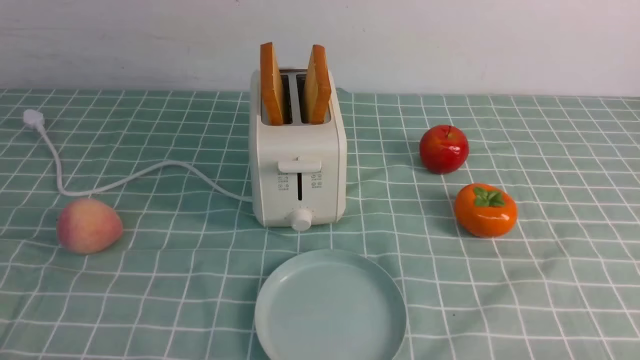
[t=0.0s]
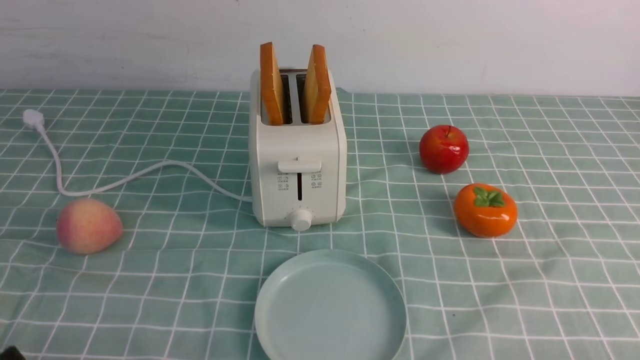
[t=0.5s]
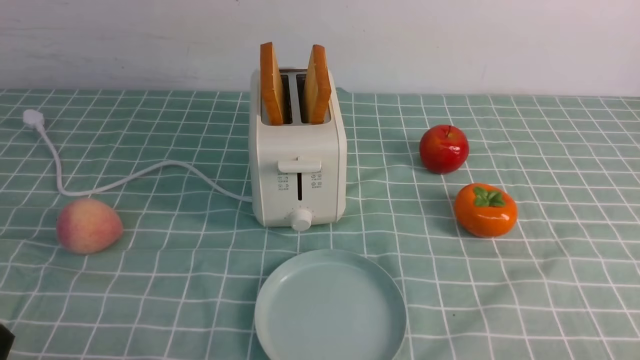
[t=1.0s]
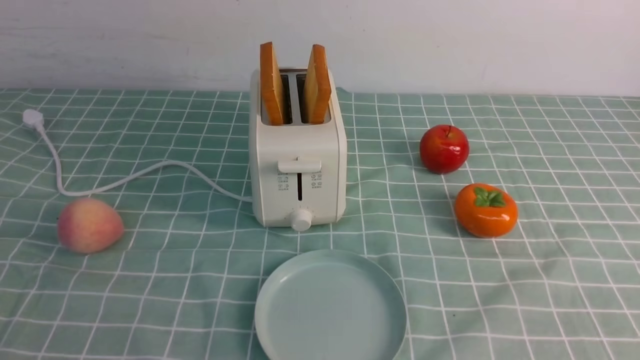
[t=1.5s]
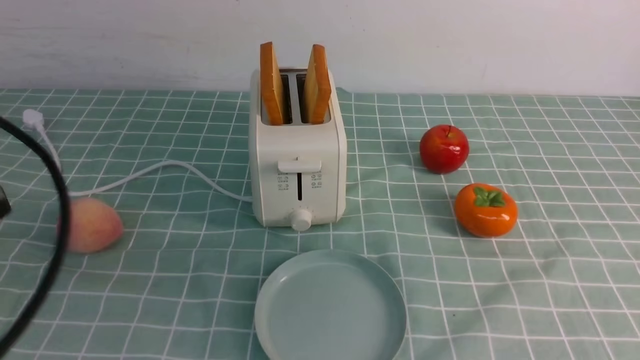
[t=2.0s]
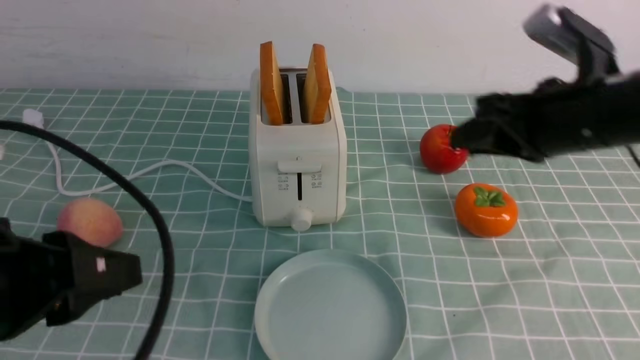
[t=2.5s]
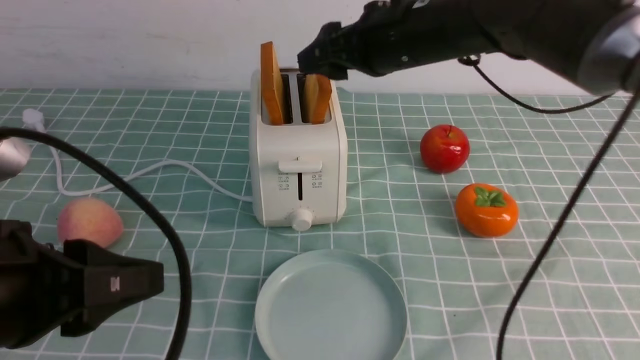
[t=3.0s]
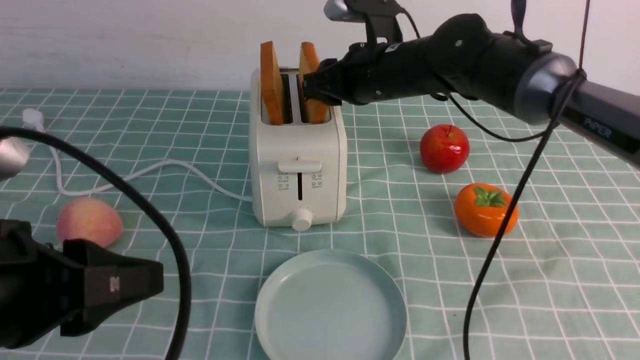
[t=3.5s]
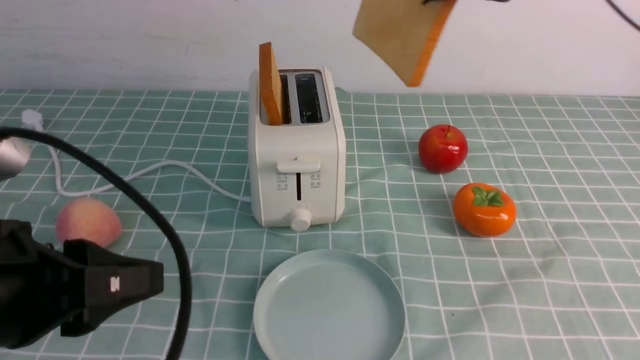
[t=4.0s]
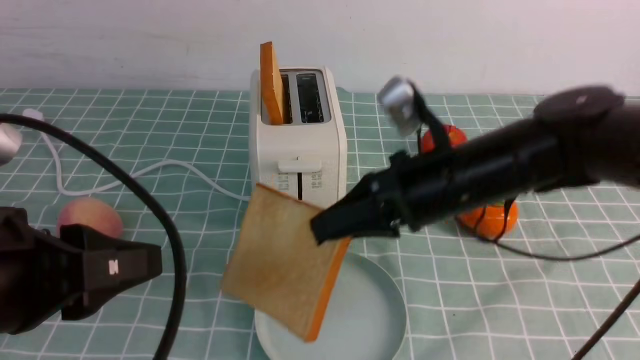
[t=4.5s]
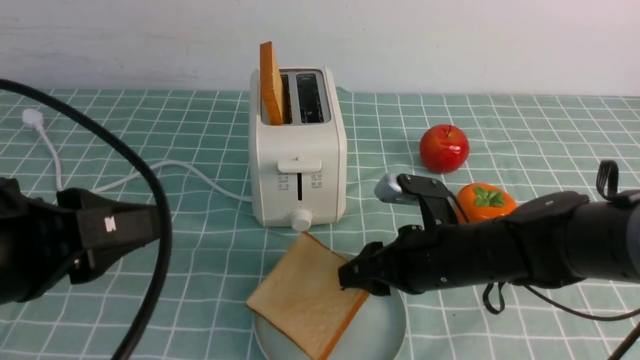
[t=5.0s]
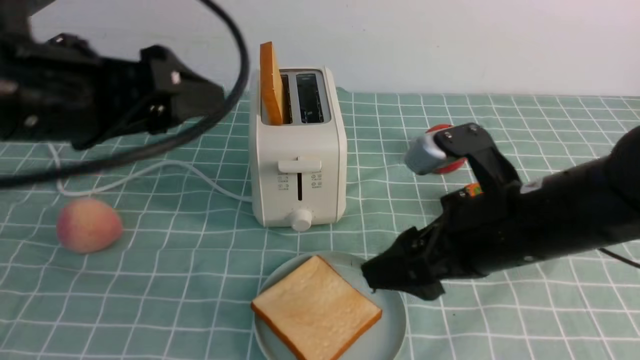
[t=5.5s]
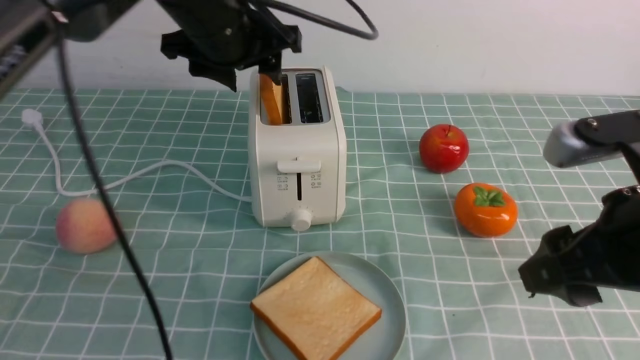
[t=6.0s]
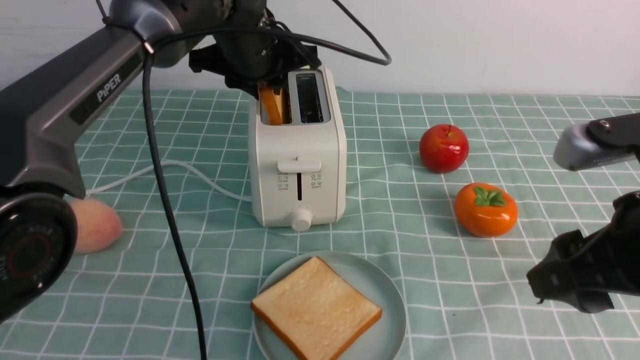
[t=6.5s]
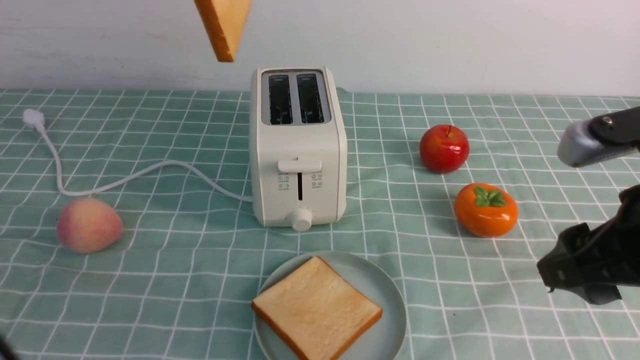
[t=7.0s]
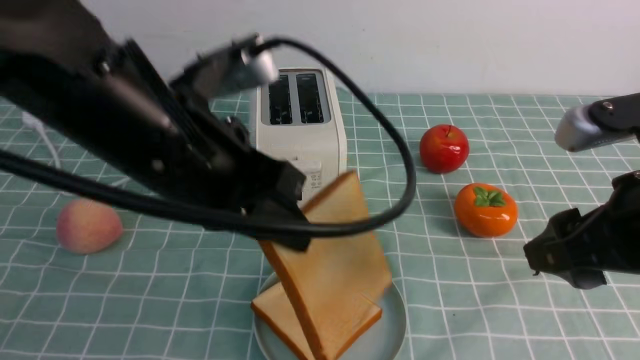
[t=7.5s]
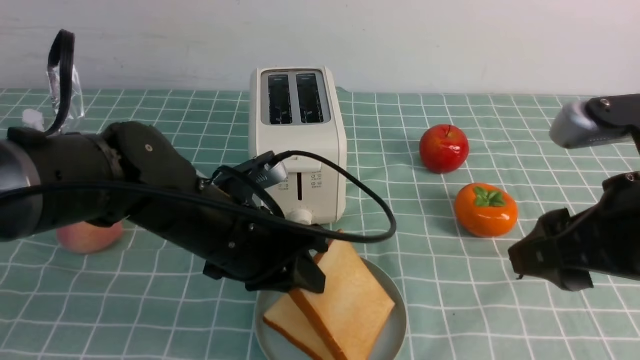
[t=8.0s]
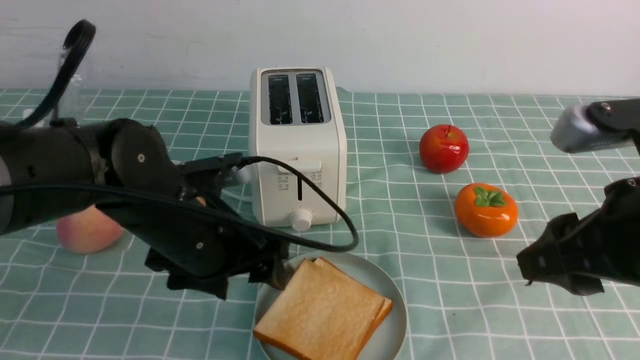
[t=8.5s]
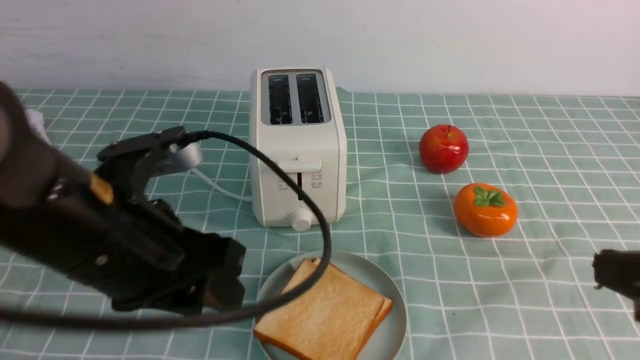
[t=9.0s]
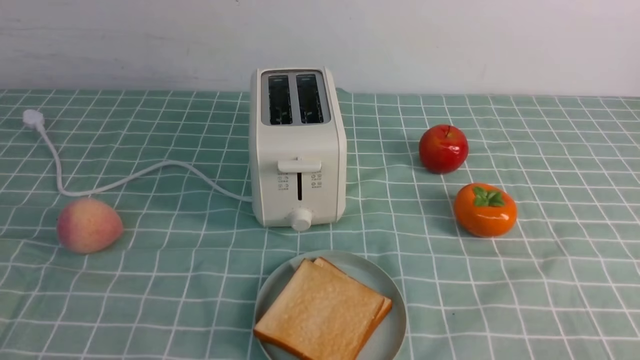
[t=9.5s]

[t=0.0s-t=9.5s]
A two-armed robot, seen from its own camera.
Task of the whole recording: take toasted bread from bread machine on blue coffee table place on plate.
Step, t=0.0s to t=3.5s: use the right arm to take out a slice of bread.
Step, t=4.0s to t=5.0s: use the right arm to put a slice of bread into the plate.
Step, t=5.5s to t=7.0s: use the left arm to take out a slice of bread.
Step, t=7.5s to t=8.5s: use the left arm to put a slice of bread into the empty plate.
t=0.0s to t=2.0s: Both grippers move upward and forward, about 20 cm.
t=2.0s to t=4.0s: The left gripper is displaced to the right by some 5 cm. Meanwhile the right gripper heads forward and to the left, covering some 25 cm, and opens, then closes again.
t=4.0s to t=5.5s: The right gripper moves backward and downward, some 20 cm, and opens its fingers. Meanwhile the left gripper goes some 15 cm forward and upward, and opens.
t=5.5s to t=7.5s: The left gripper heads to the right, covering roughly 10 cm, goes forward and returns, some 20 cm each way, and closes. The right gripper heads to the right, upward and backward, covering about 10 cm.
t=7.5s to t=9.5s: The right gripper heads backward, downward and to the right, covering roughly 15 cm, and closes its fingers. The left gripper is displaced backward and to the left by approximately 25 cm, and opens and closes again.

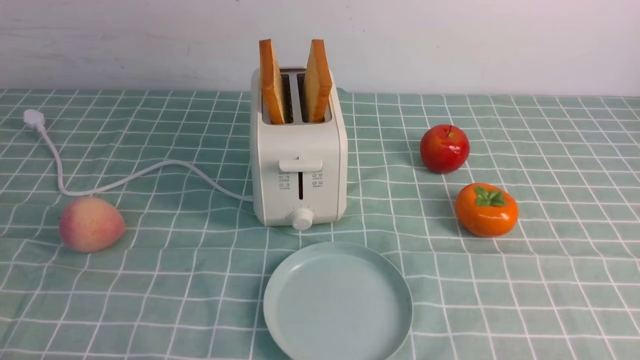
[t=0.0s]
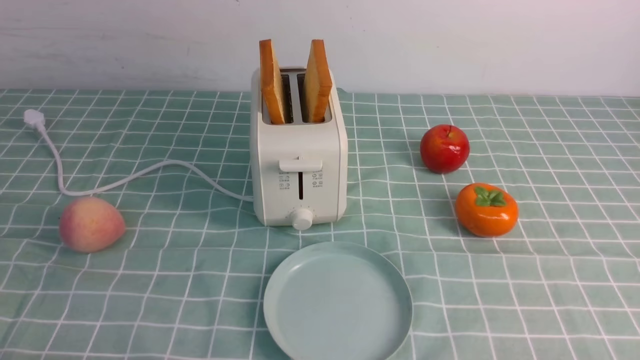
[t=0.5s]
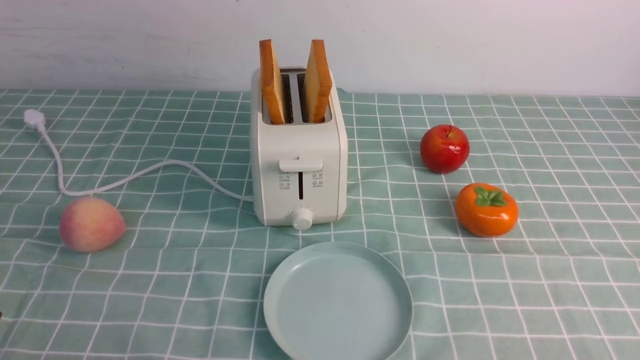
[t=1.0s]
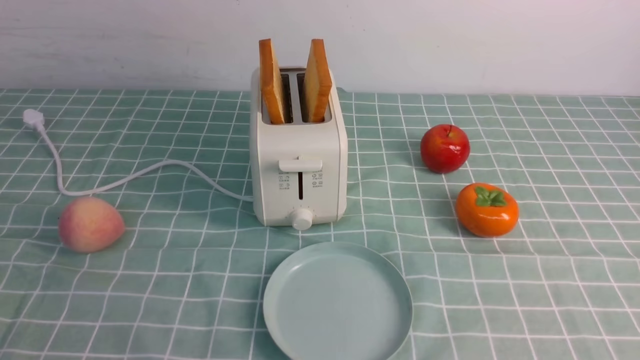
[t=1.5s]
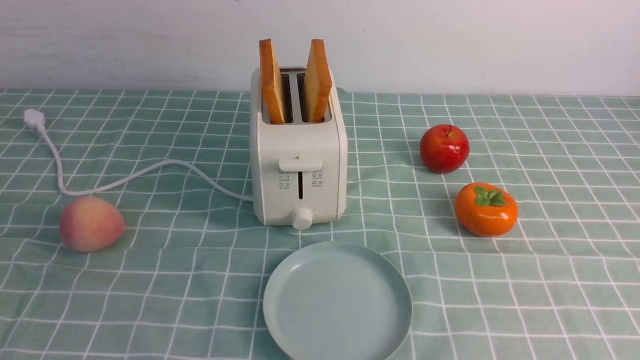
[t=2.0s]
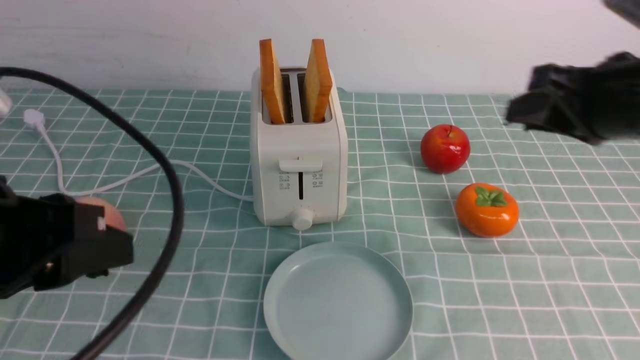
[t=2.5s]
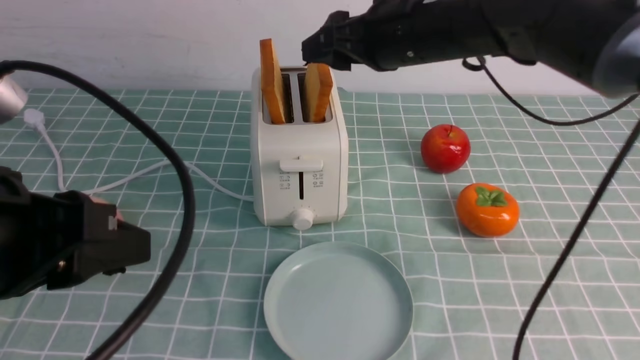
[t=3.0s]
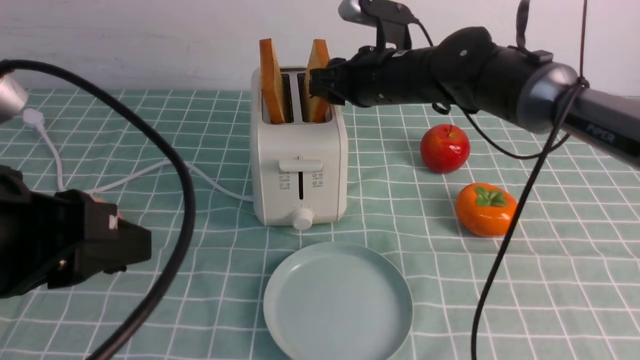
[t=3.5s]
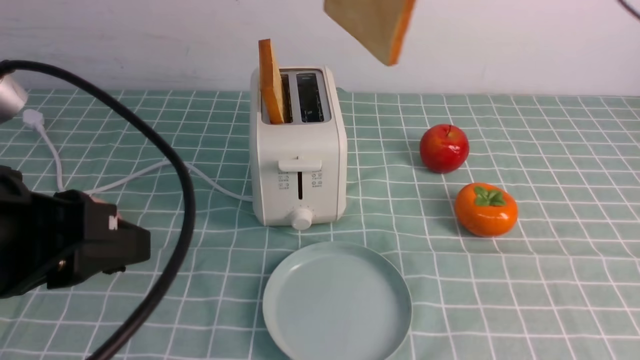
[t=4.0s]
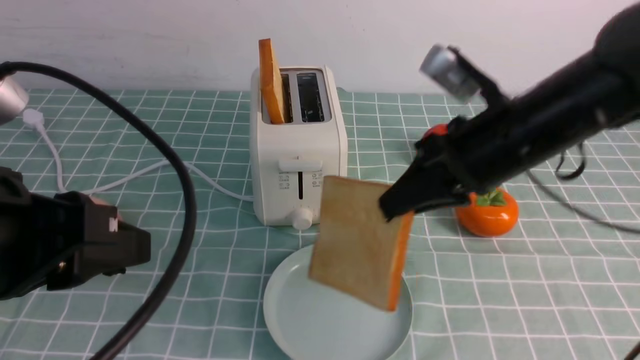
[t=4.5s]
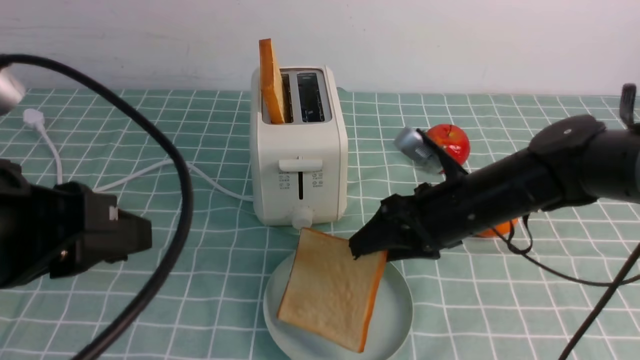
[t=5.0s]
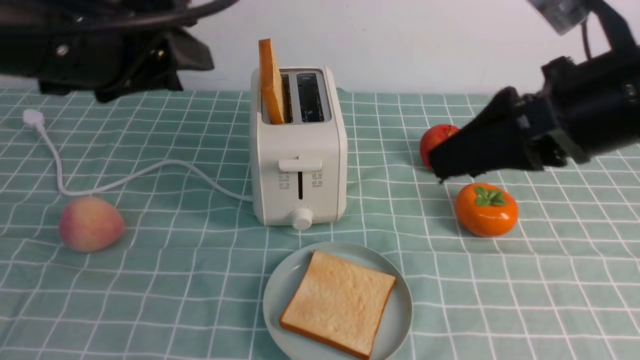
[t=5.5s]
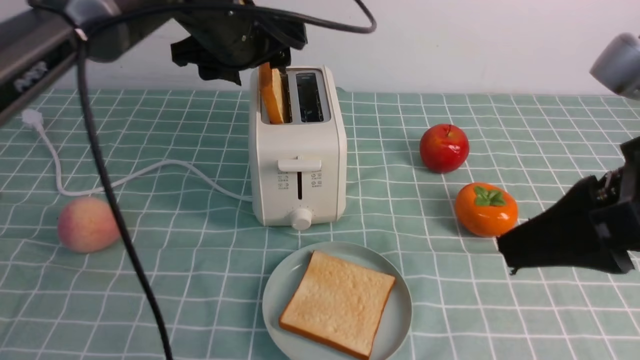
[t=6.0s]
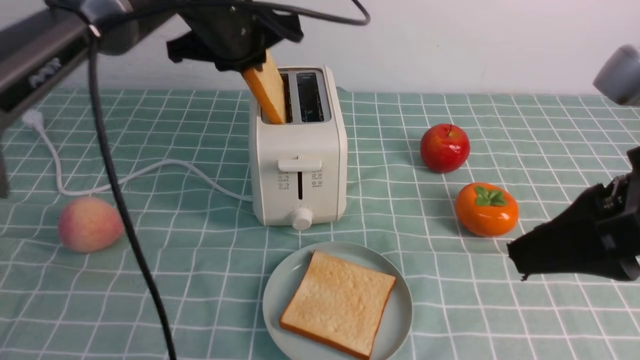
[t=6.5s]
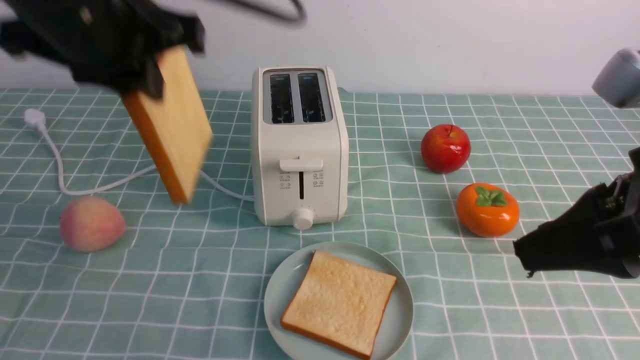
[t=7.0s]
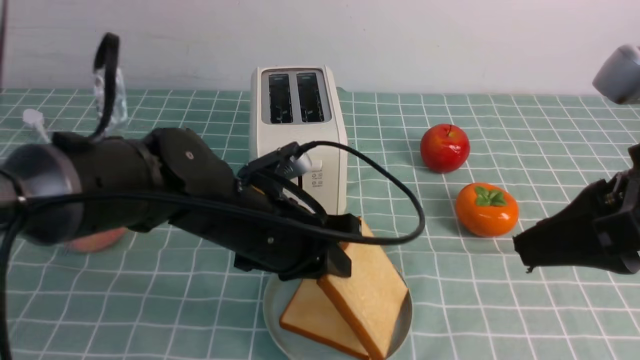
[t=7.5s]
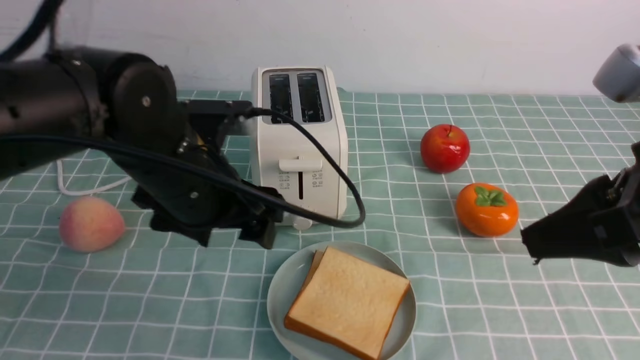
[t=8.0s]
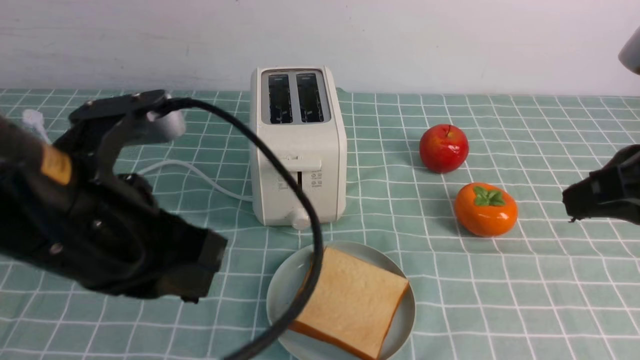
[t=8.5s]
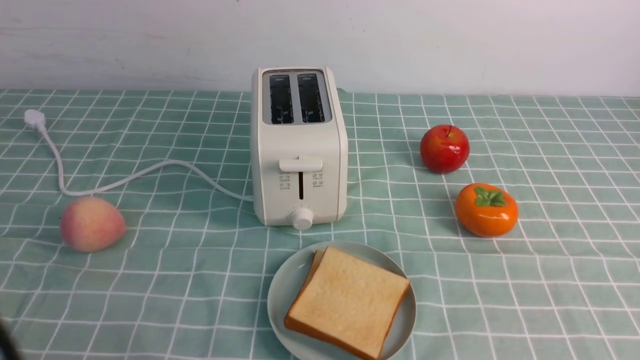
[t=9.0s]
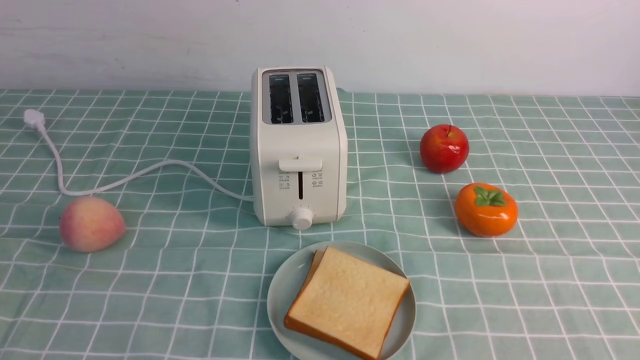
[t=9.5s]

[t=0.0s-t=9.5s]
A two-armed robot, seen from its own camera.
Task of the whole recording: take toasted bread from bread machine on blue coffee table place on plate.
Step, t=0.0s to t=4.0s: use the right arm to take out a slice of bread.
Step, t=4.5s to t=5.0s: use the right arm to put a slice of bread into the plate.
Step, t=5.5s to t=6.5s: use the left arm to take out a slice of bread.
Step, t=7.0s to t=8.0s: use the left arm to put a slice of bread into the empty plate.
t=2.0s to t=4.0s: The right gripper travels forward and to the left by about 25 cm, and opens, then closes again. Meanwhile the left gripper shifts roughly 5 cm to the right.
t=4.0s to t=5.5s: The left gripper is displaced forward by some 15 cm. Meanwhile the right gripper goes about 10 cm backward, reaches some 20 cm downward, then returns, and opens its fingers.
t=5.5s to t=7.5s: The right gripper goes about 5 cm backward. The left gripper goes up and down, approximately 15 cm each way, reversing 2 times, and closes up.
t=7.5s to t=9.5s: The right gripper goes some 20 cm downward, backward and to the right, and closes. Meanwhile the left gripper travels backward and to the left by approximately 35 cm, and closes its fingers.
